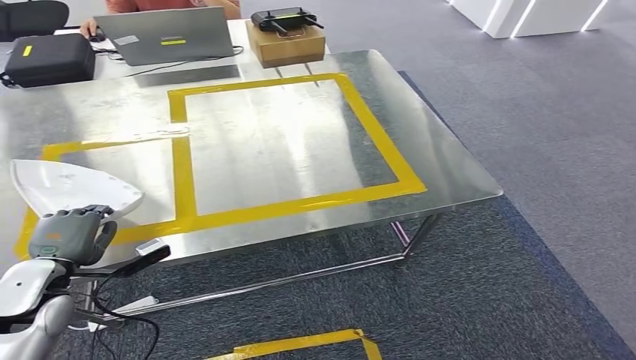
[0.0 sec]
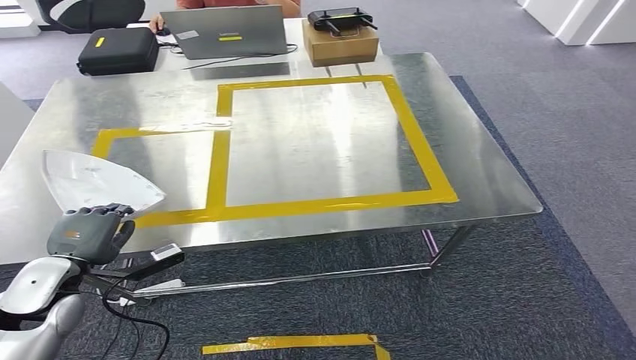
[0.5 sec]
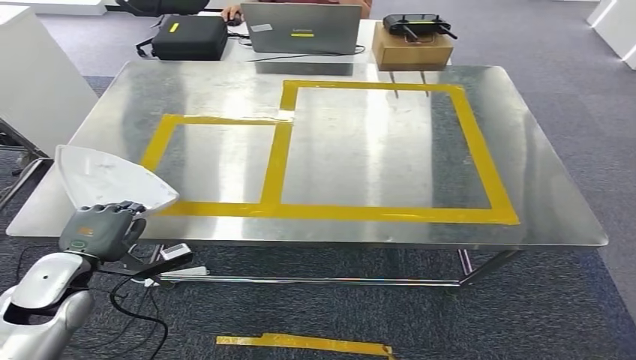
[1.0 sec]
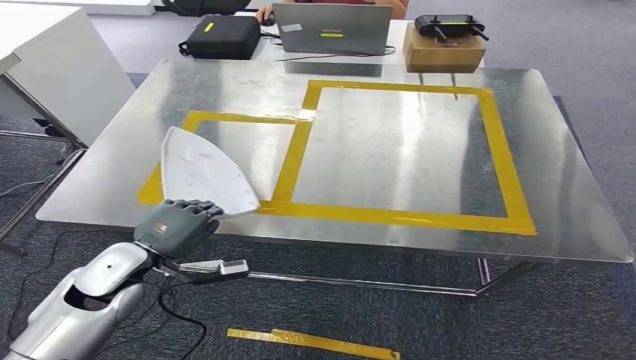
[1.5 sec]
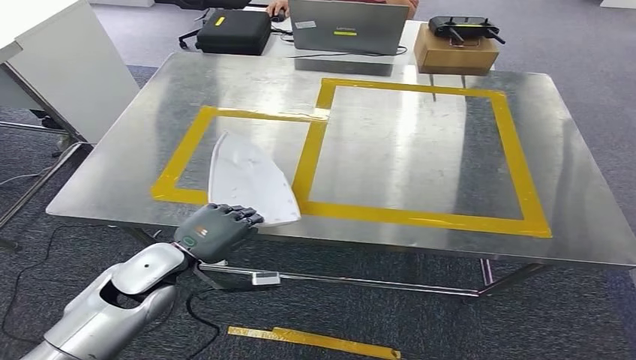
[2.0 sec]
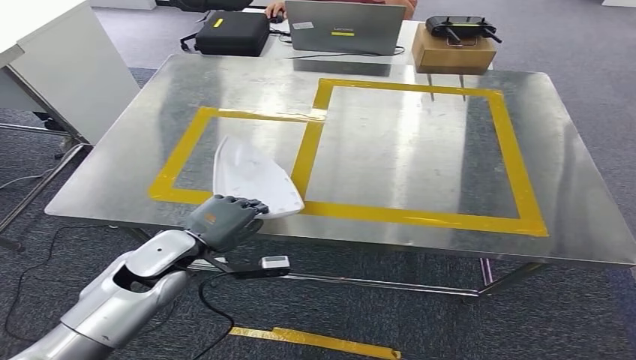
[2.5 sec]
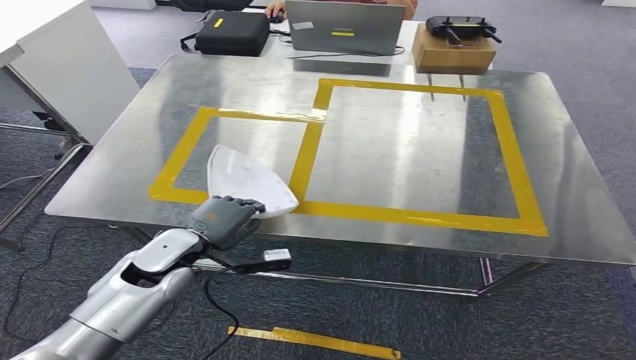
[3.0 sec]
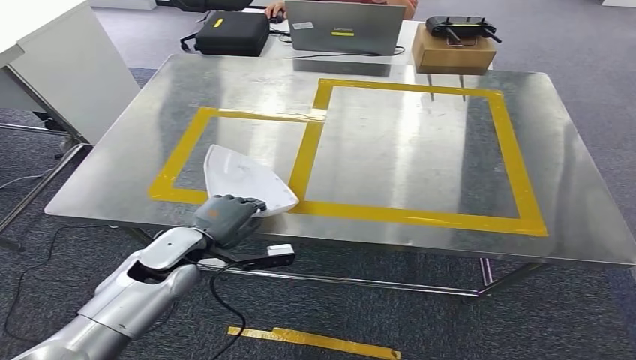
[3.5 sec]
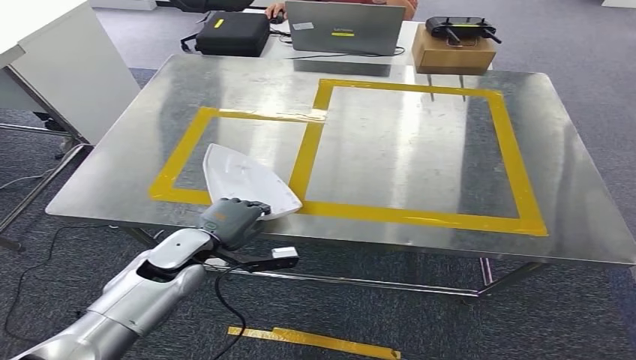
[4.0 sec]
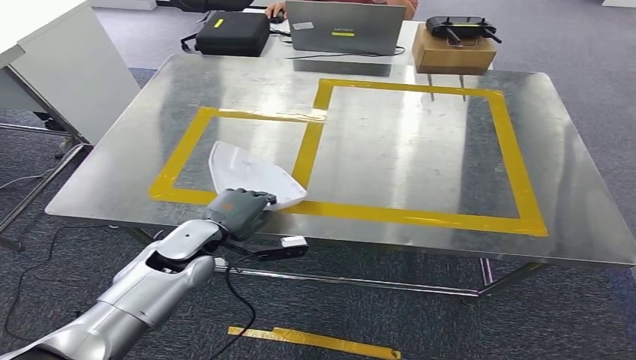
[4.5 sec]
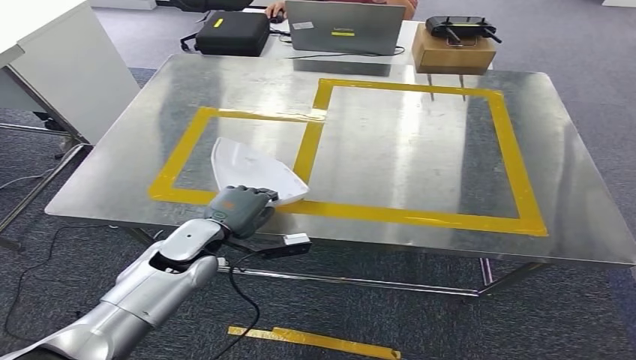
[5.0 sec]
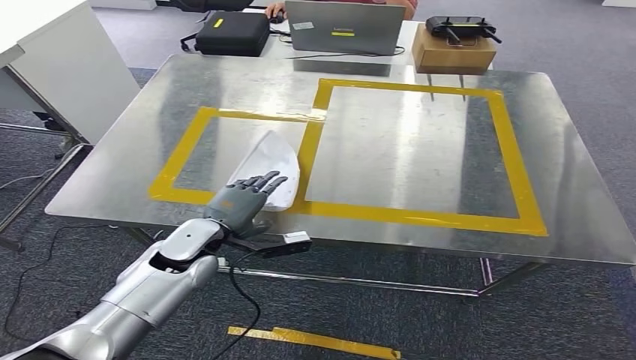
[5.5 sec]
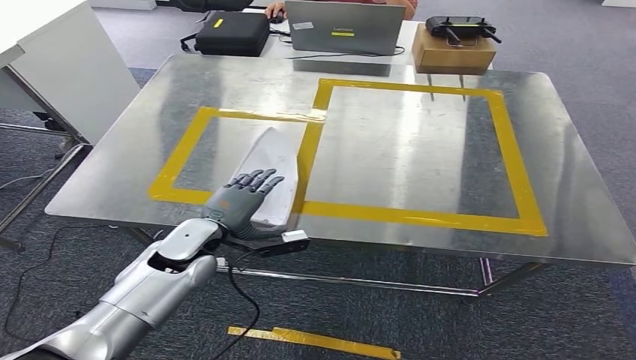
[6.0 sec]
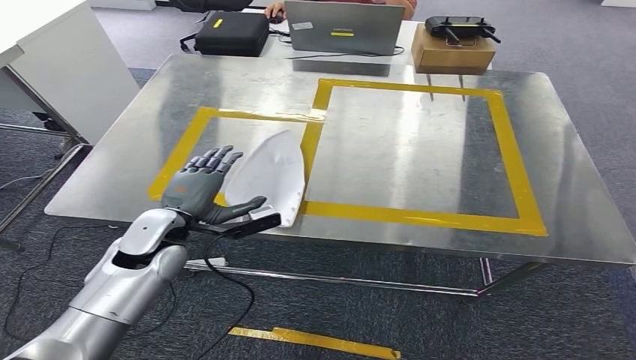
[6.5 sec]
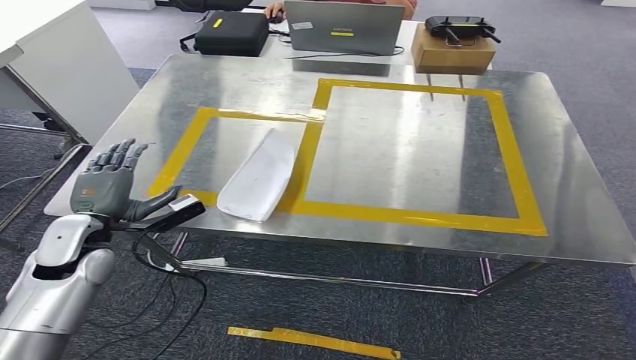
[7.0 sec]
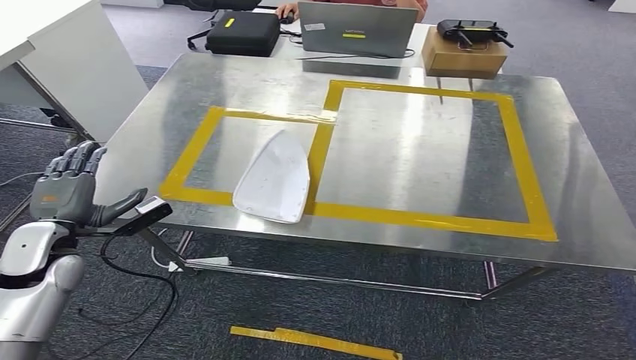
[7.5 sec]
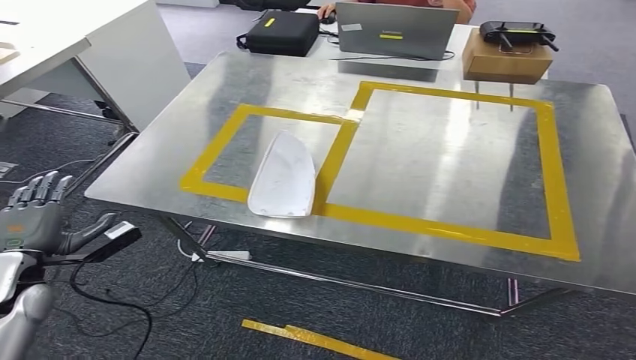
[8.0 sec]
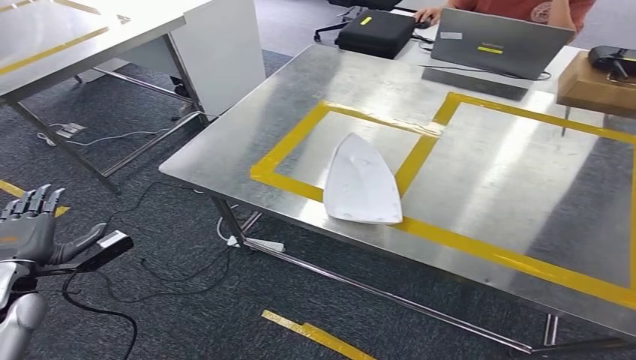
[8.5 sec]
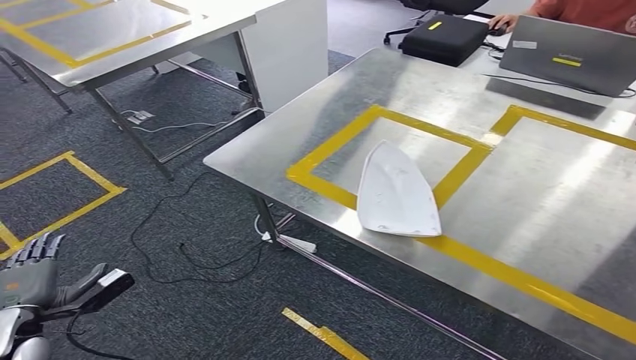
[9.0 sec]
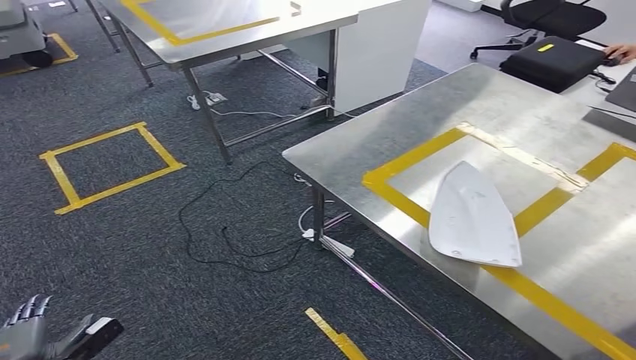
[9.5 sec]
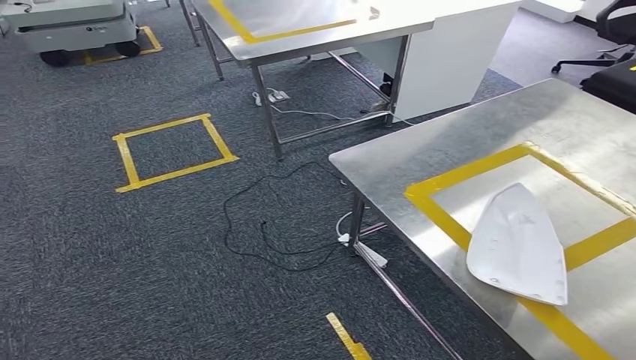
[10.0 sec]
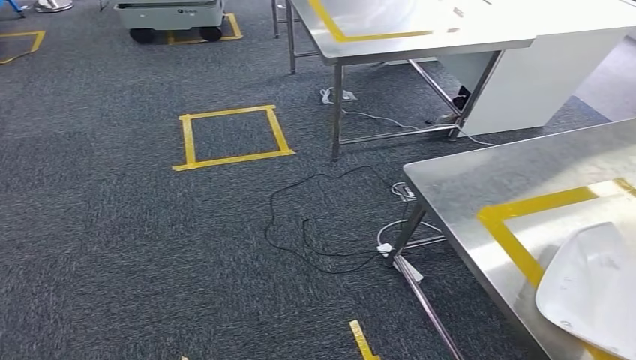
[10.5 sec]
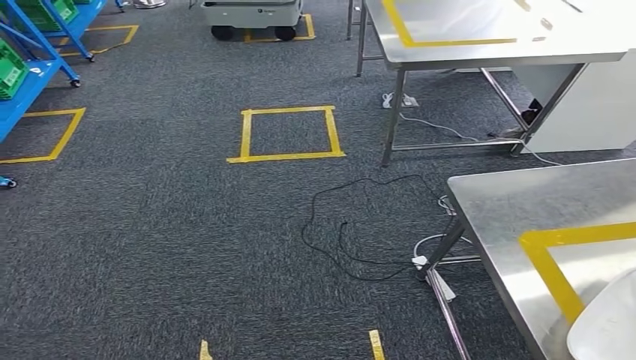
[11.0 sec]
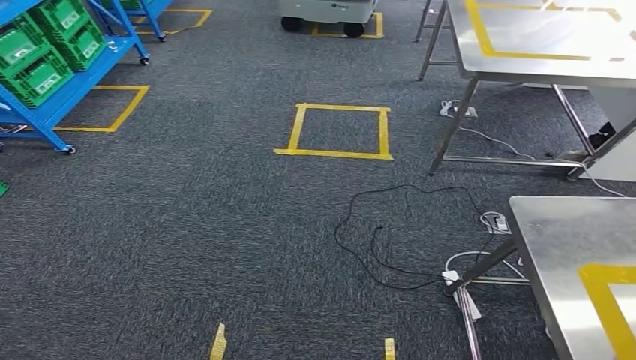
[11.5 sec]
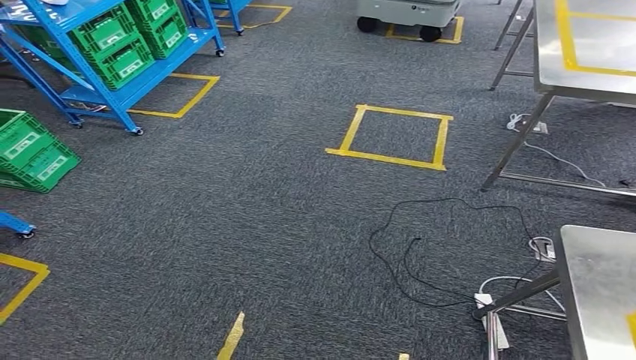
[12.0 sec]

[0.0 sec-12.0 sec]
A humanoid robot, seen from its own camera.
Step, 0.0 sec to 8.0 sec: Insert the small component into the corresponding slot on the workbench.
2.0 sec to 4.0 sec: The left hand changes place by some 5 cm.
4.0 sec to 6.0 sec: The hands stay close to where they were, moving slightly.

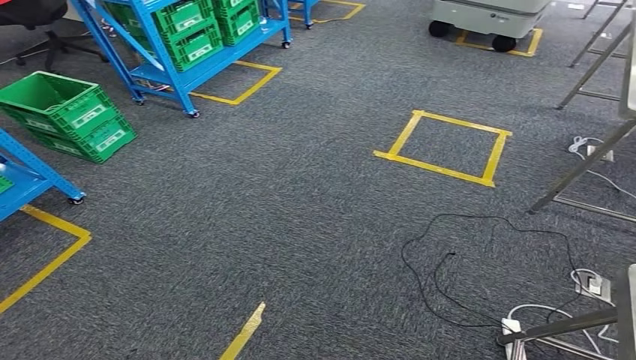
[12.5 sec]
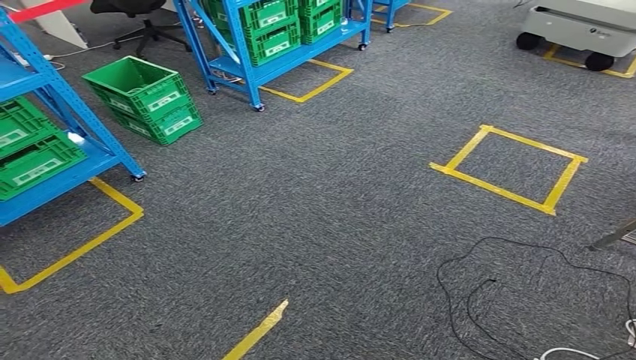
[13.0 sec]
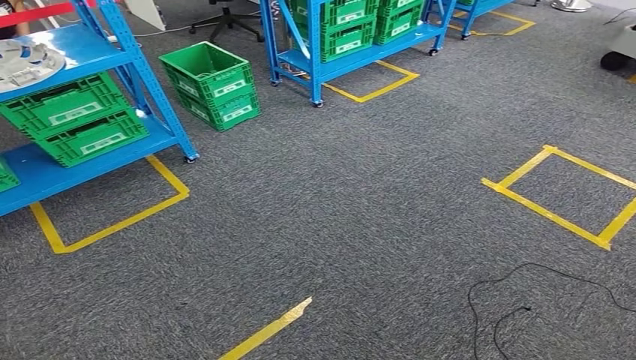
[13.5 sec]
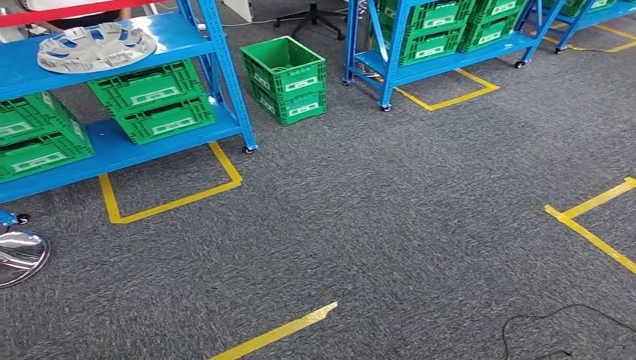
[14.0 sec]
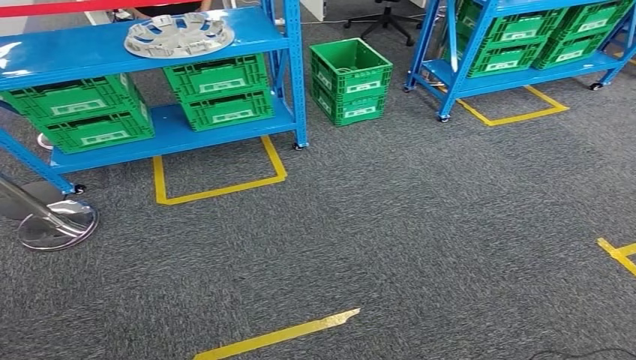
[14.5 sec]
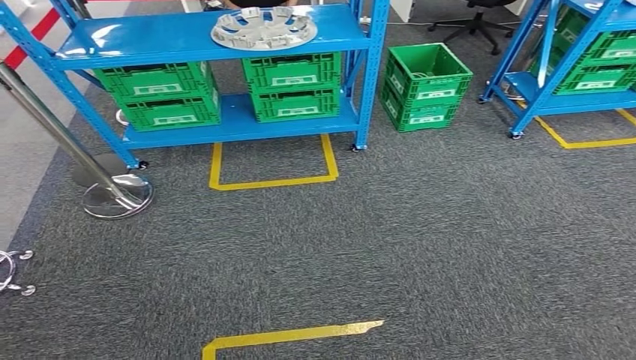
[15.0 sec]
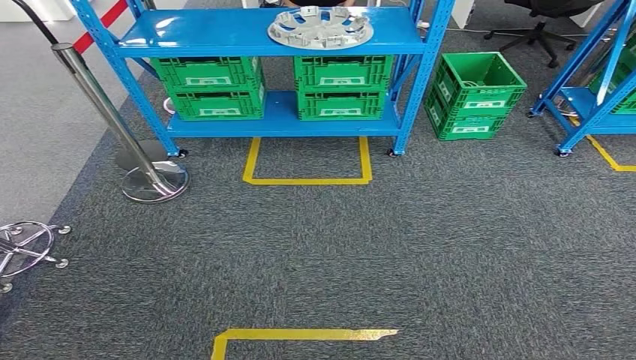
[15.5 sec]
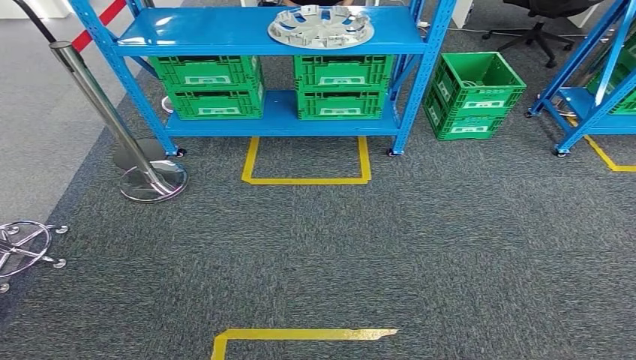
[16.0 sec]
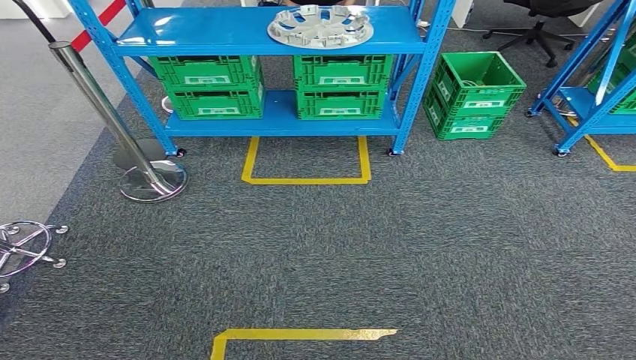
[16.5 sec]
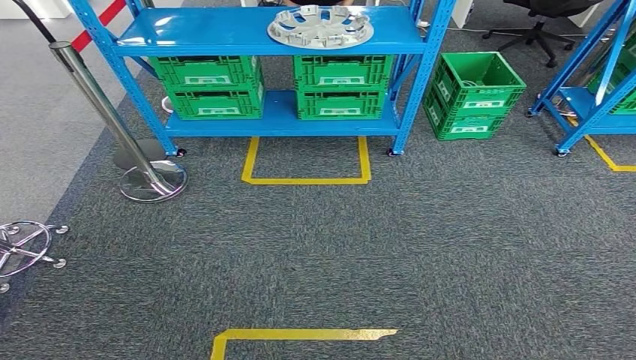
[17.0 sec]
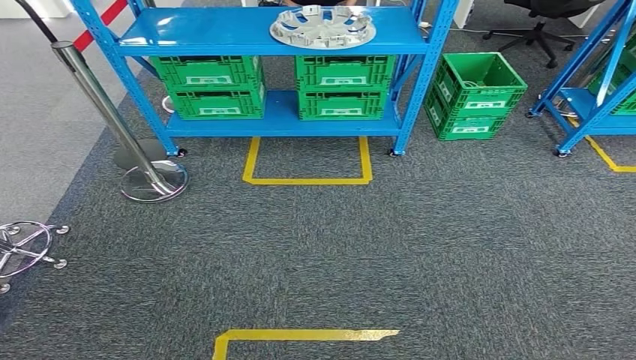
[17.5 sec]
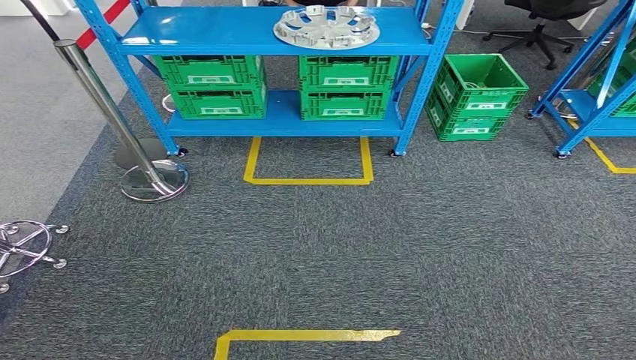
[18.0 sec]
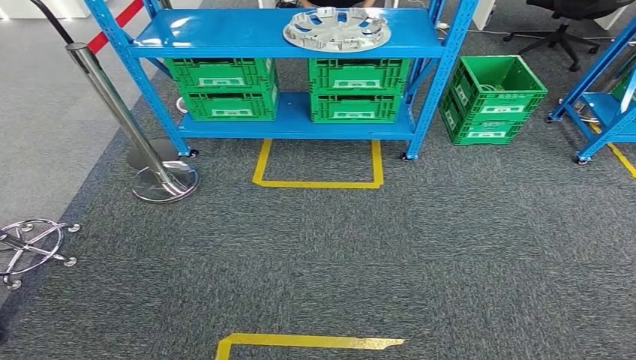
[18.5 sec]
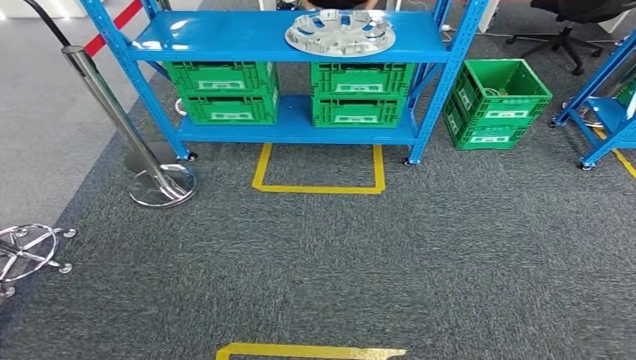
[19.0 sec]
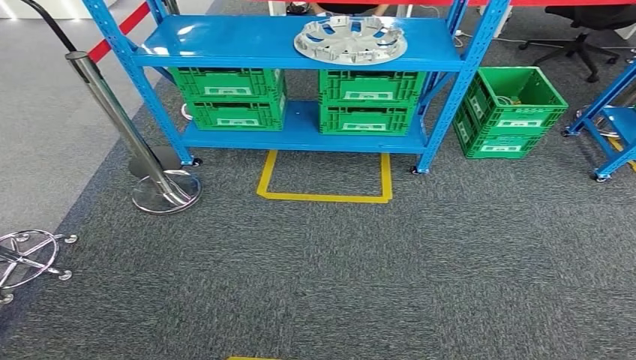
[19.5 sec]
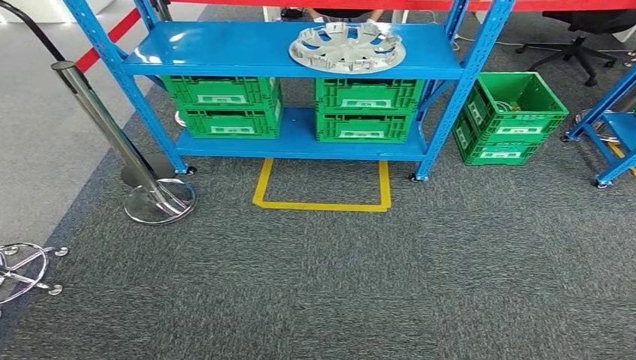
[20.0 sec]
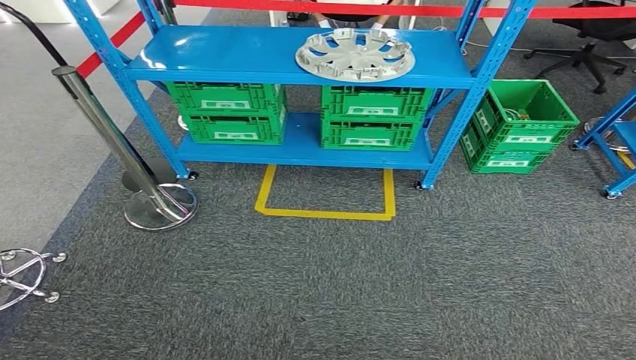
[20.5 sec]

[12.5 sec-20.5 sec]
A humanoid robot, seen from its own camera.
Step, 12.5 sec to 20.5 sec: Move to the initial position of the workbench.
